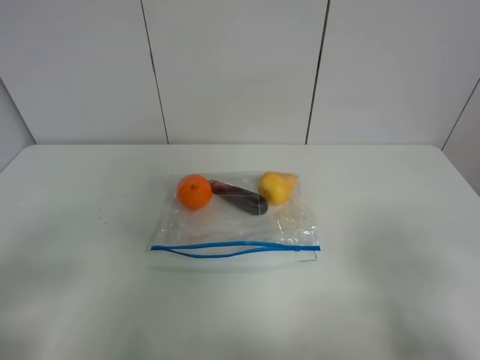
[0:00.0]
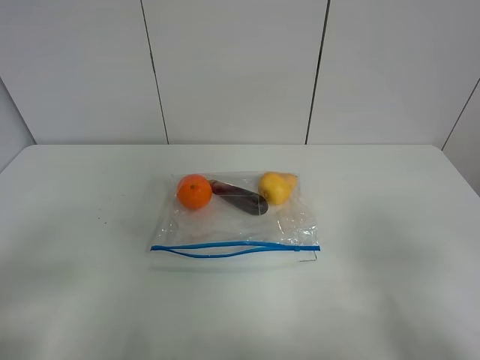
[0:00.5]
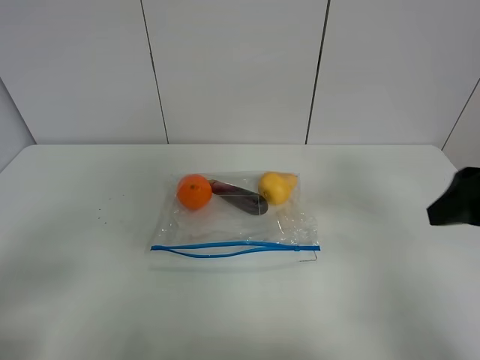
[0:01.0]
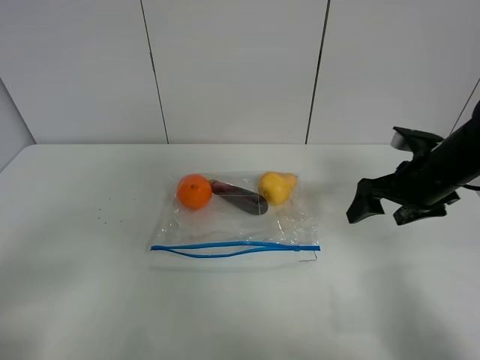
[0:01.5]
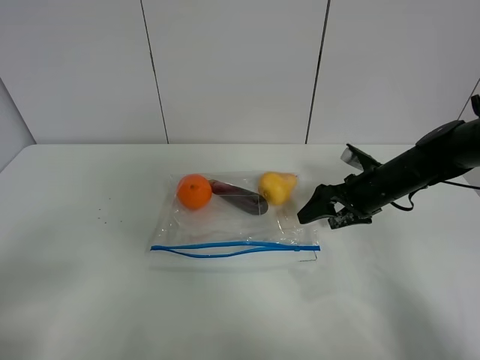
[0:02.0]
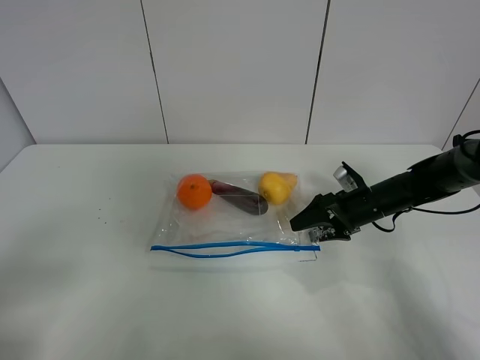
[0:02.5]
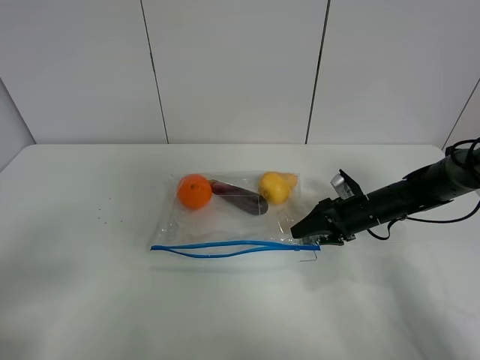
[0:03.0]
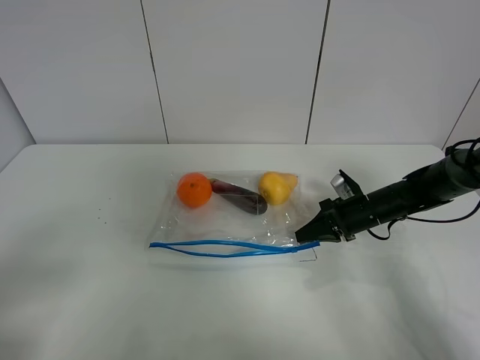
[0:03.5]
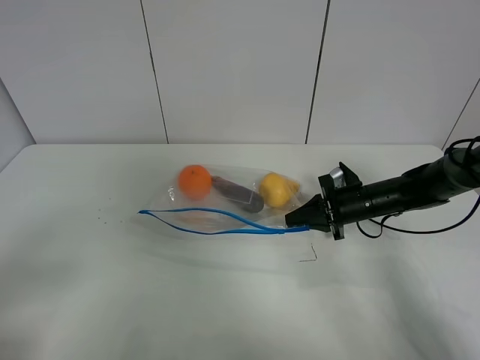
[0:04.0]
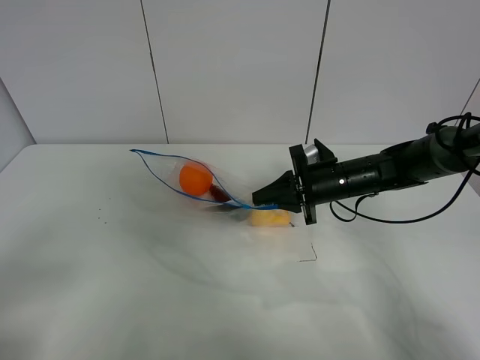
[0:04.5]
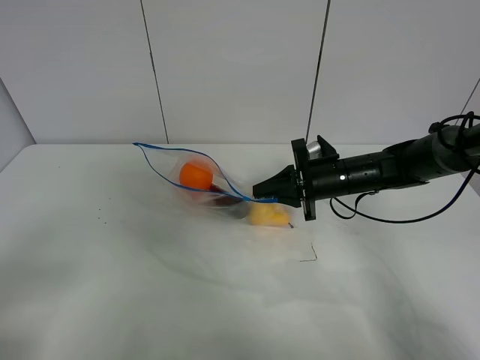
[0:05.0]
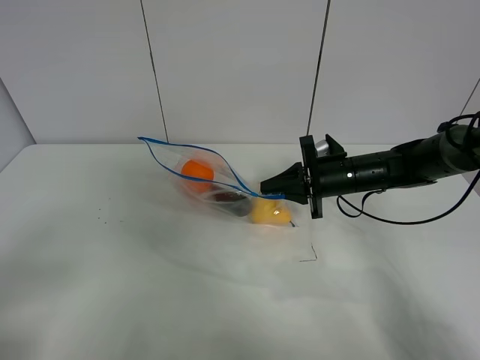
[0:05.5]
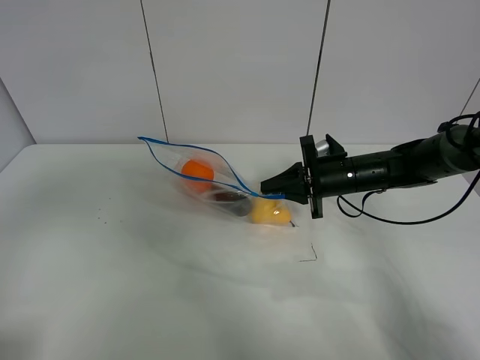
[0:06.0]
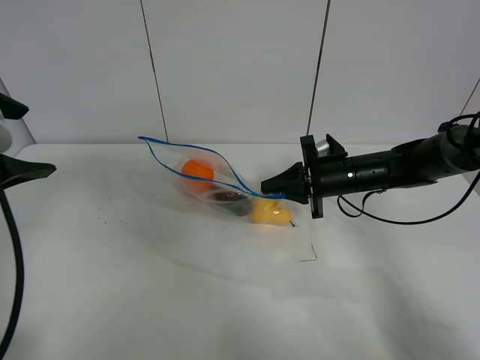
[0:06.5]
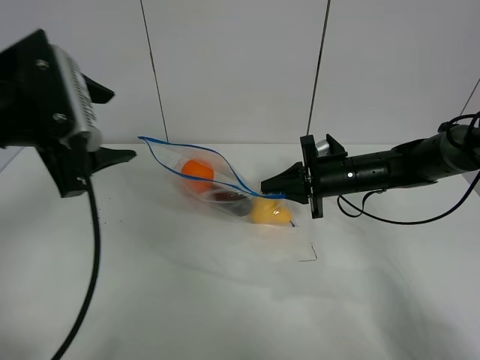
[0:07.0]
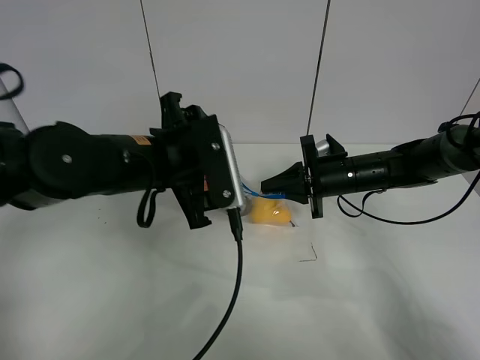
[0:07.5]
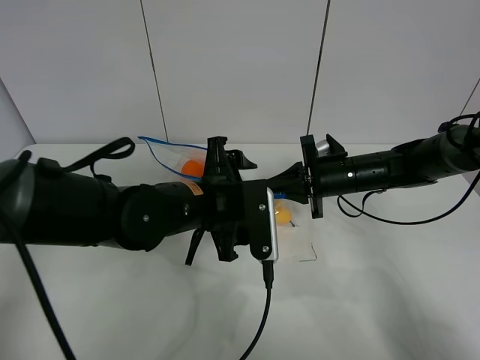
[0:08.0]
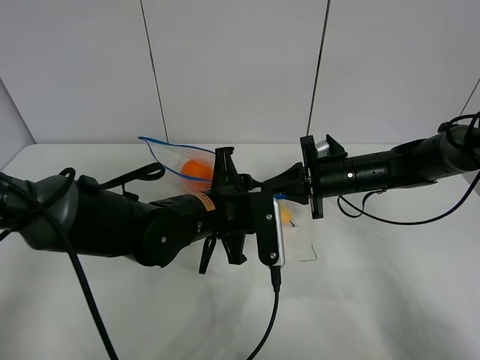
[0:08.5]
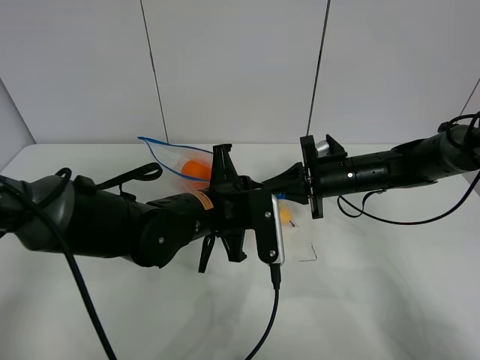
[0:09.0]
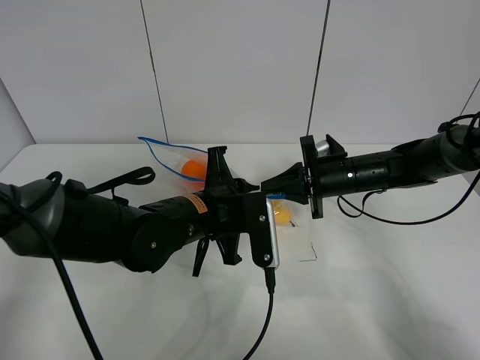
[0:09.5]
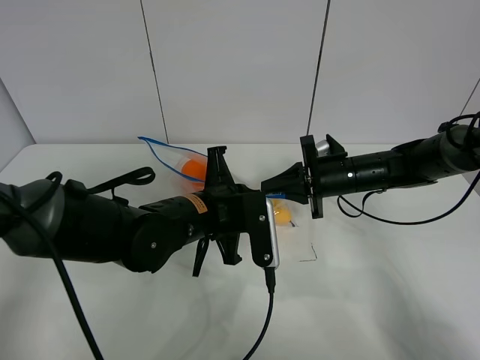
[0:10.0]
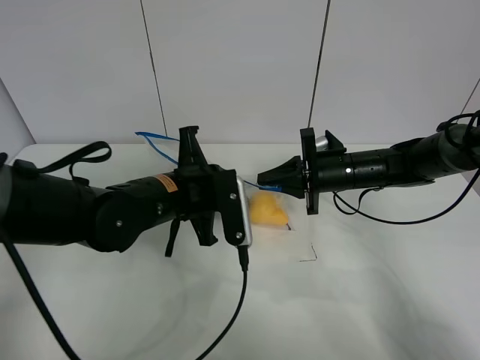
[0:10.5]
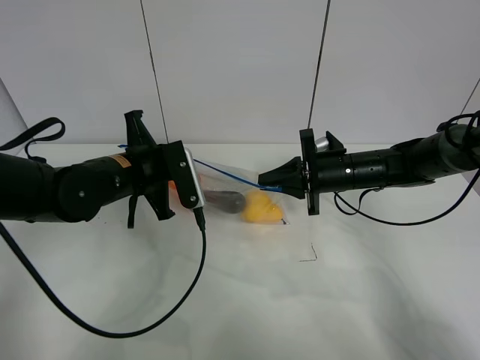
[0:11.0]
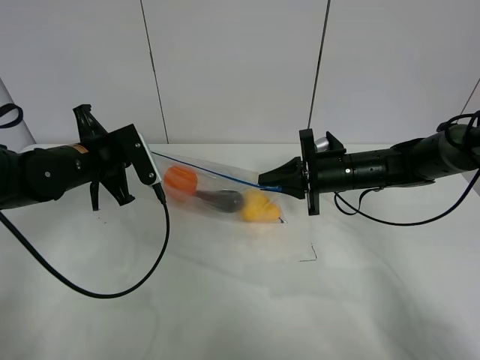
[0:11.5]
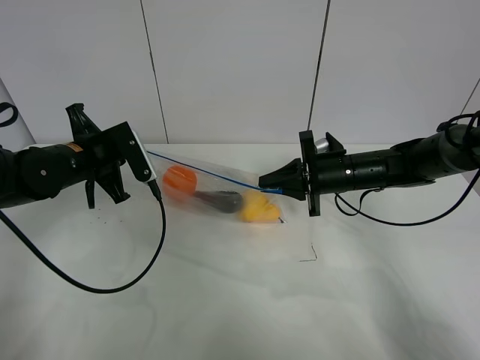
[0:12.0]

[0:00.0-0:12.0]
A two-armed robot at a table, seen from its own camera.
Step, 0:00.0 to 0:03.0: Grasp the fruit bag with right gripper.
Step, 0:03.5 to 0:05.5: Lift the fruit bag with your right gripper.
0:00.0 to 0:02.0: The right gripper heads forward and downward, covering some 40 cm.
0:02.0 to 0:04.0: The right gripper closes up.
0:04.0 to 0:06.0: The left gripper shifts approximately 15 cm upward and forward. The right gripper moves upward, approximately 5 cm.
0:06.0 to 0:08.0: The left gripper moves to the right, downward and forward, approximately 35 cm.
0:08.0 to 0:10.0: The left gripper closes.
0:10.0 to 0:12.0: The left gripper travels to the left and forward by about 20 cm.

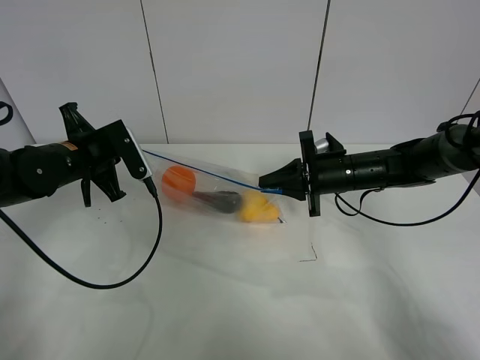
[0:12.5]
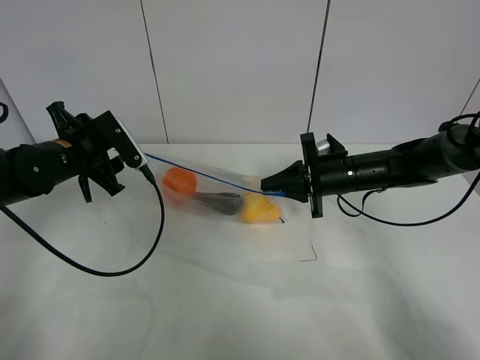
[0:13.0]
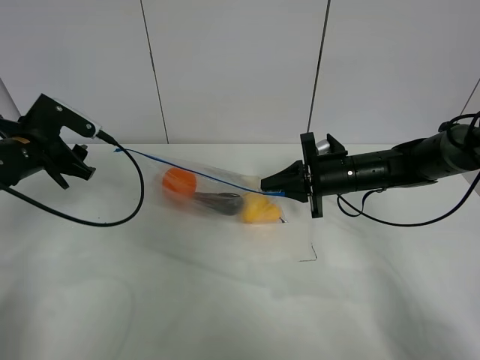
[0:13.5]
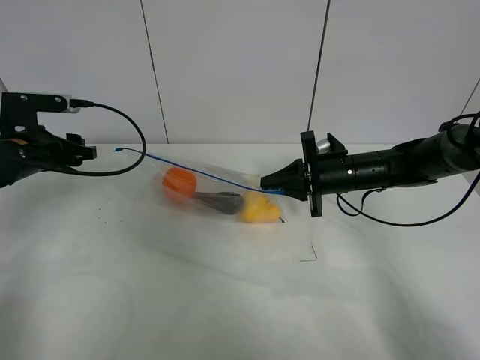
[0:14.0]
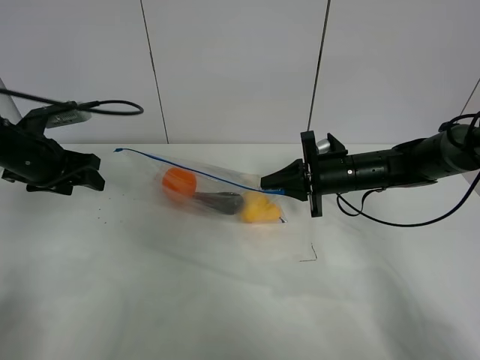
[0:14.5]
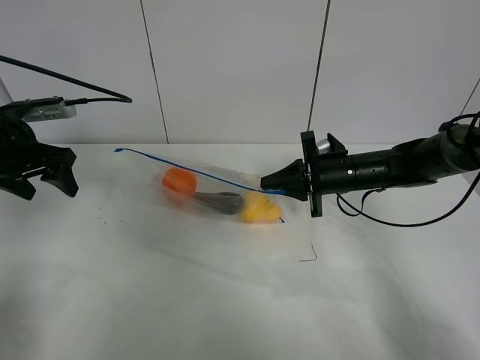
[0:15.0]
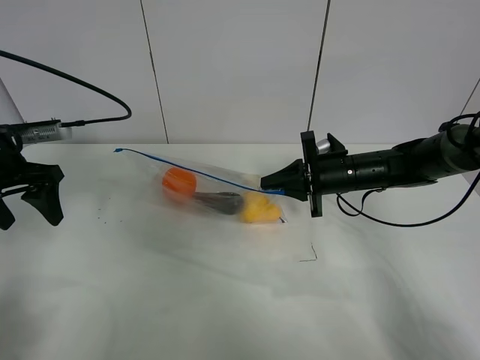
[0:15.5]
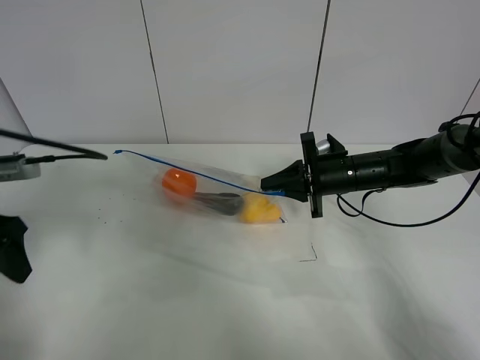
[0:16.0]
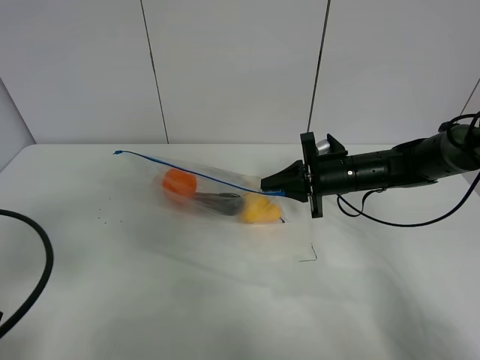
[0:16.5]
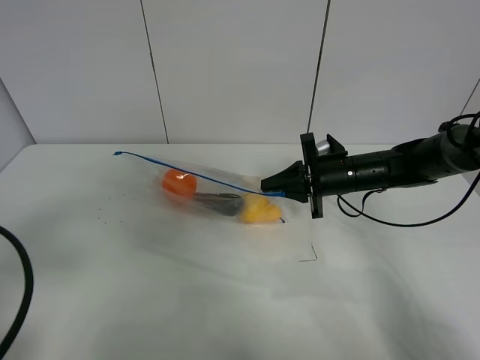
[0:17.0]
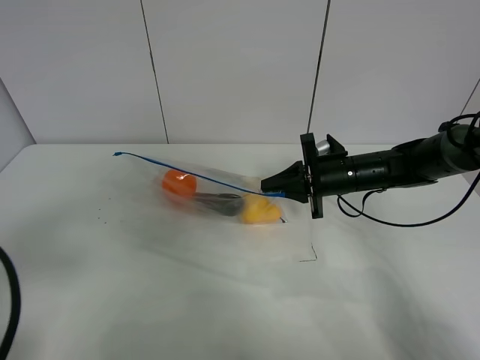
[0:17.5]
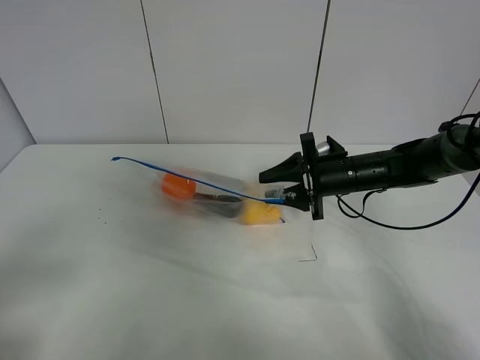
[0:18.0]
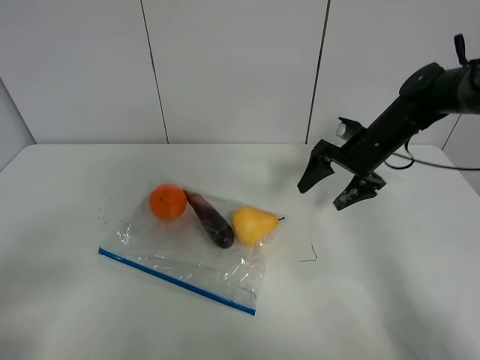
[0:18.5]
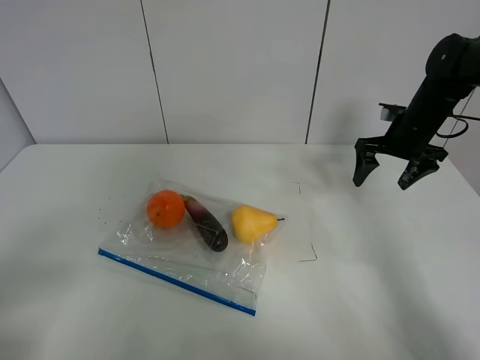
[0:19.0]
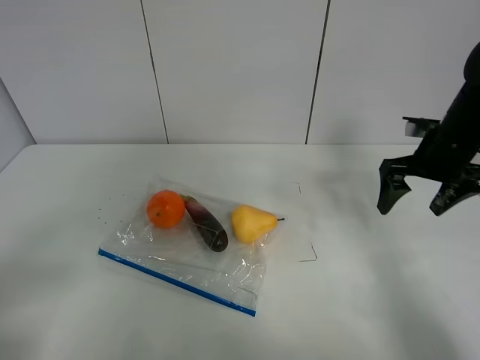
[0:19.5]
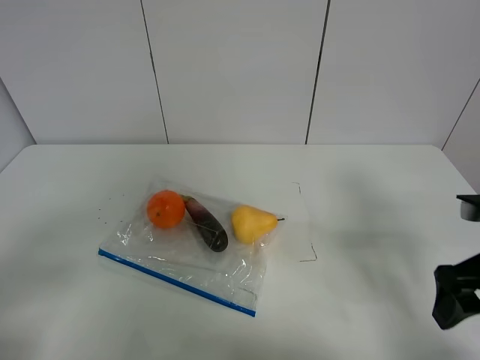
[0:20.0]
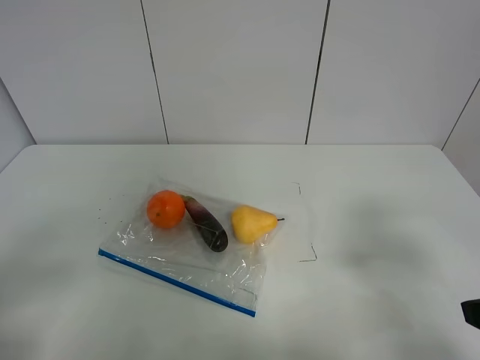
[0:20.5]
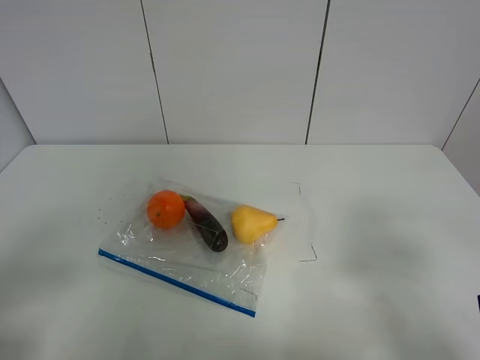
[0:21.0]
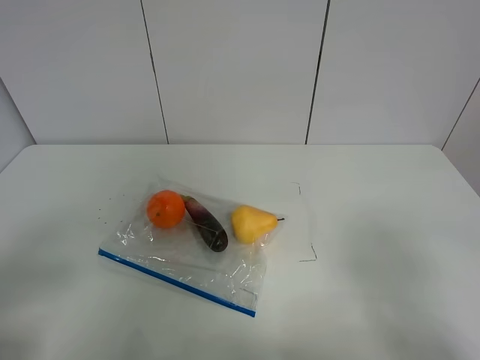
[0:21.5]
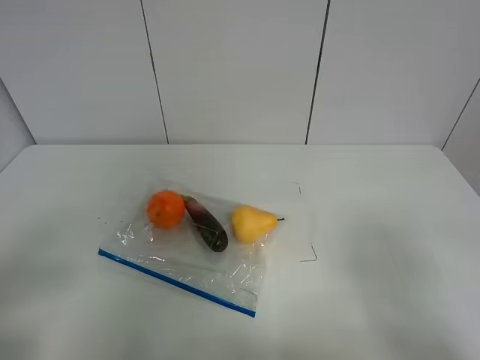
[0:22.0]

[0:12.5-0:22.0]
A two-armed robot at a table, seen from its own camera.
0:12.5 to 0:14.5: The left gripper is displaced to the left by some 10 cm, and opens up.
0:14.5 to 0:16.5: The left gripper is displaced backward by about 25 cm.
0:16.5 to 0:18.0: The left gripper is displaced backward by roughly 10 cm, while the right gripper opens its fingers.
0:18.0 to 0:20.0: The right gripper goes roughly 25 cm backward, to the right and upward.
0:20.0 to 0:22.0: The right gripper shifts some 15 cm backward.

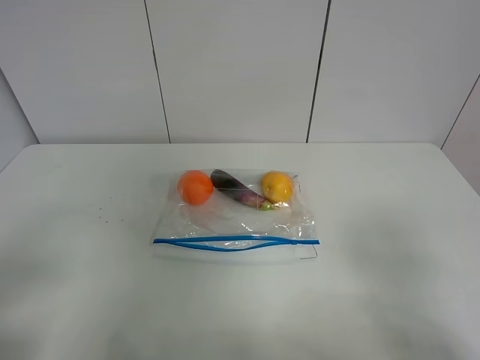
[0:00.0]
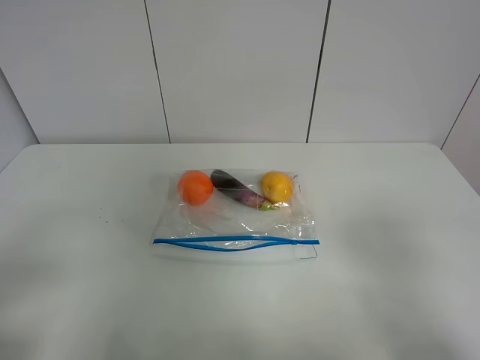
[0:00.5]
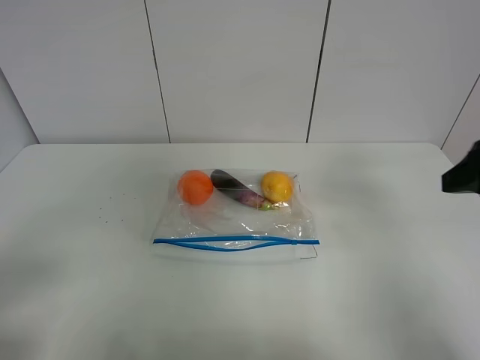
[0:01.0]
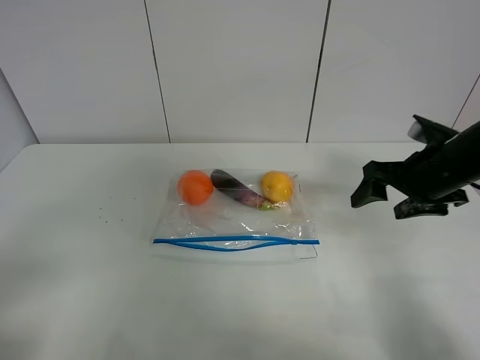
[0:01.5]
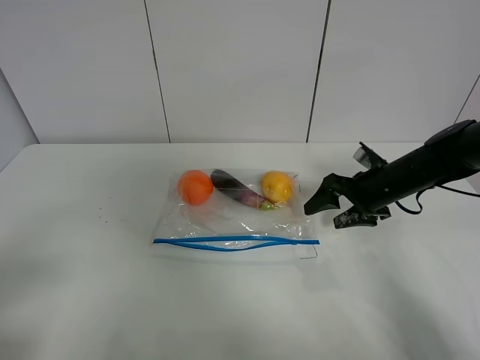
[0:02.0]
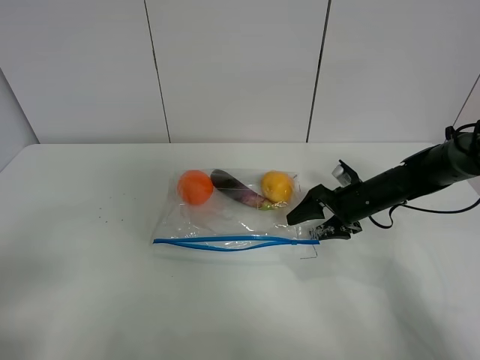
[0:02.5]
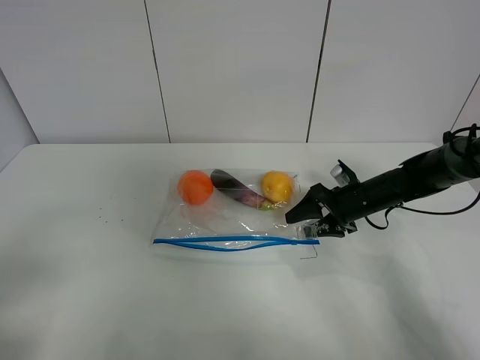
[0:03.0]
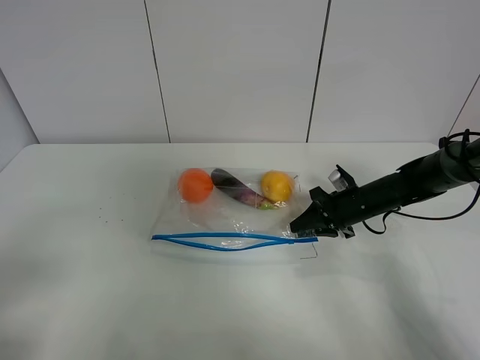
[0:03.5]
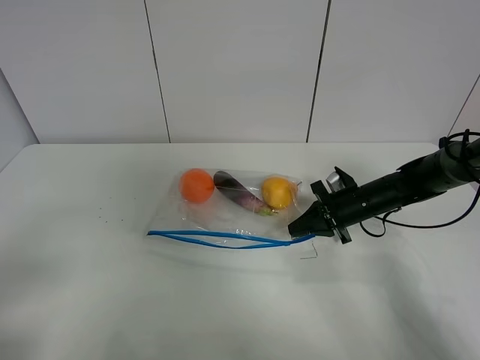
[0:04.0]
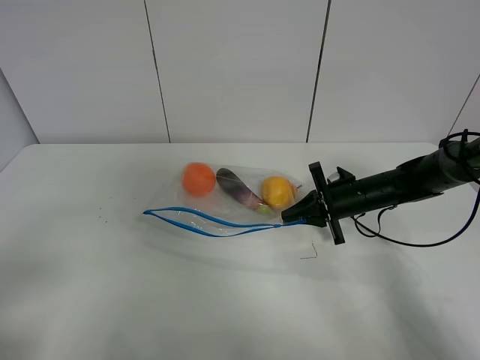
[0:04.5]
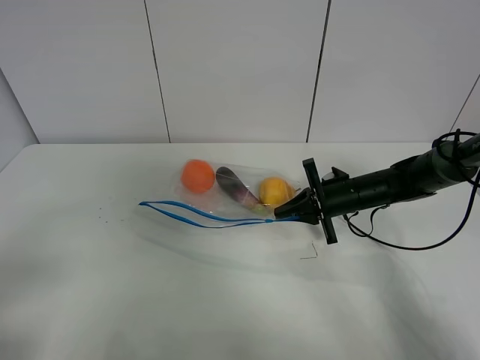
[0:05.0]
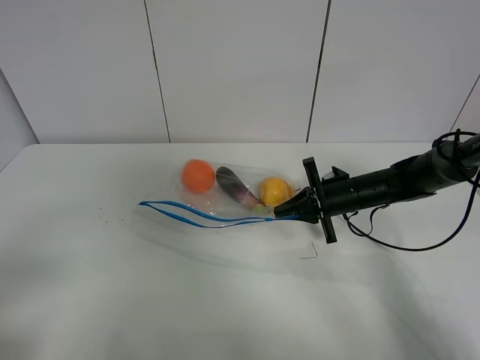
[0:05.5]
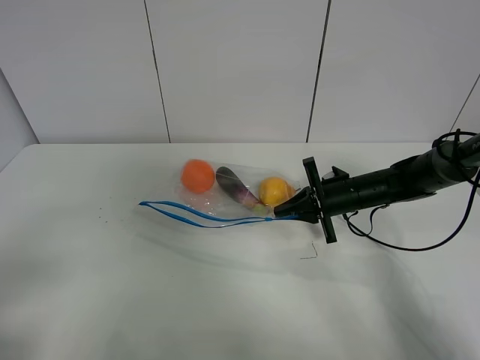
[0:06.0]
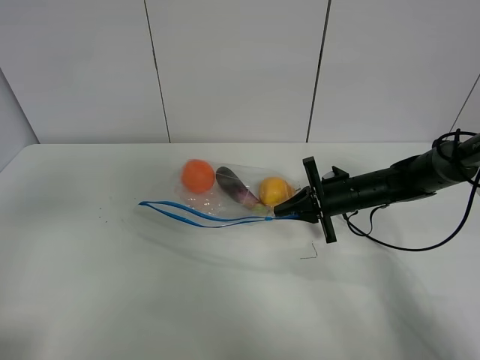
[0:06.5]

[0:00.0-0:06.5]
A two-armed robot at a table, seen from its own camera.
Step, 0:00.0 to 0:03.5: Grasp the fruit bag with right gripper.
Step, 0:04.0 to 0:05.5: Lift the fruit bag with your right gripper.
0:00.0 to 0:02.0: The right gripper travels forward and downward by approximately 40 cm.
0:02.0 to 0:04.5: The right gripper moves roughly 5 cm, and closes.
0:04.5 to 0:06.5: The left gripper is displaced upward and forward by roughly 15 cm.
